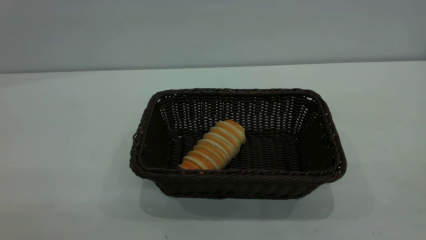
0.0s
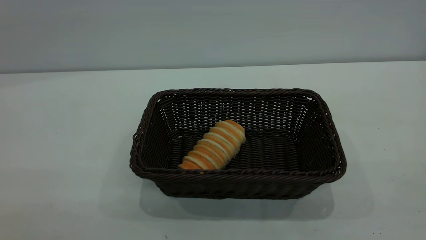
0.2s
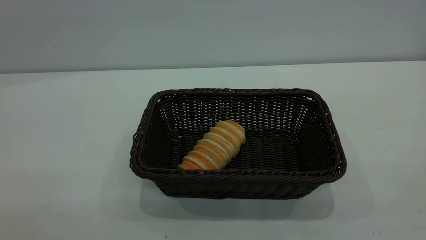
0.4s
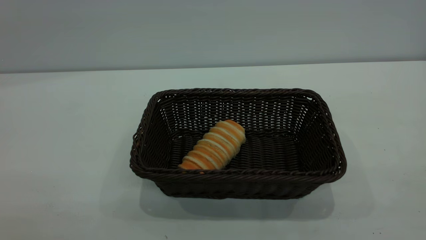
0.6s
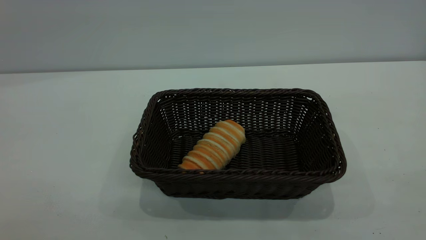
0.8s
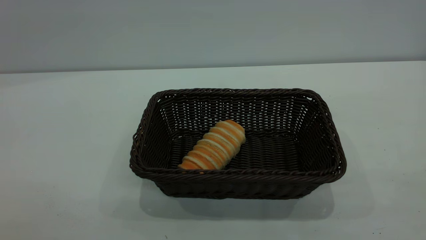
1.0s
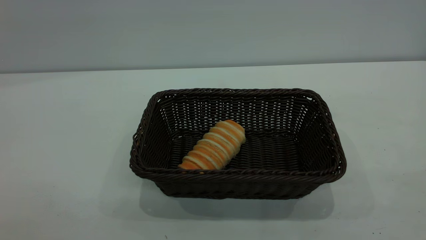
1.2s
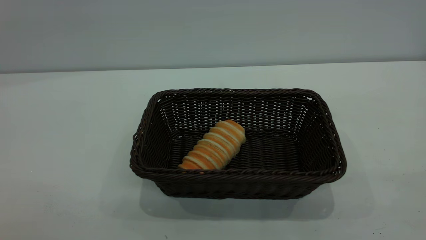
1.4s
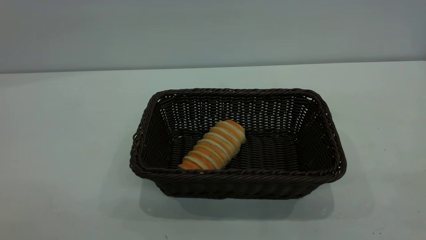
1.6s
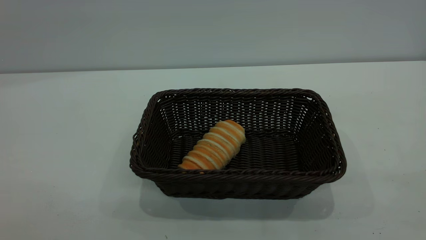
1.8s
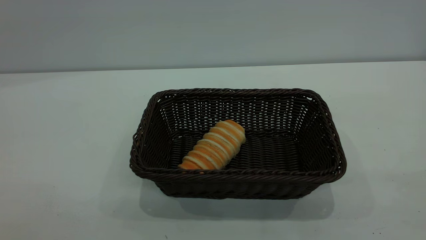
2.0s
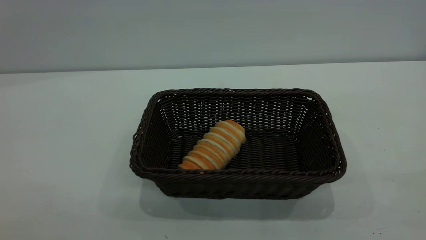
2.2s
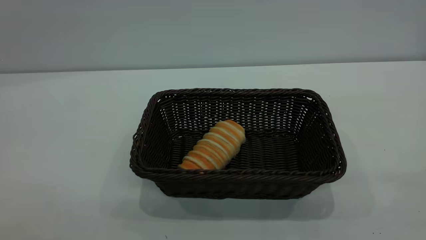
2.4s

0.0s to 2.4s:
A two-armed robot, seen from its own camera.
Task of the whole recording: One hand grasps the black basket and places it in the middle of the table, while the other hand picks up the long bread and puts it into the black basket.
1.2s to 2.4s: Neither gripper changes place.
